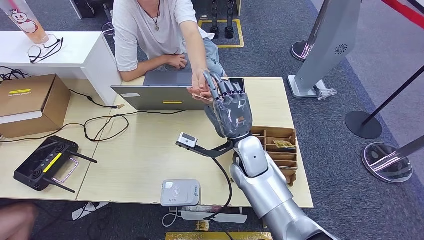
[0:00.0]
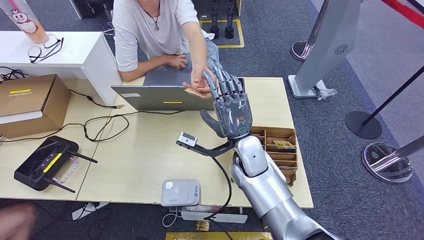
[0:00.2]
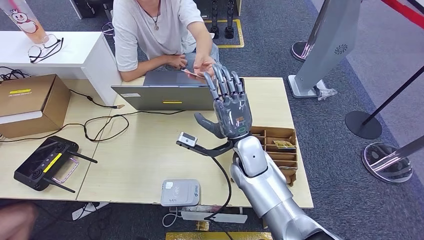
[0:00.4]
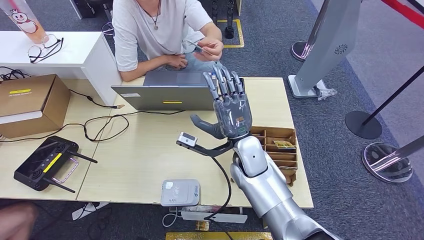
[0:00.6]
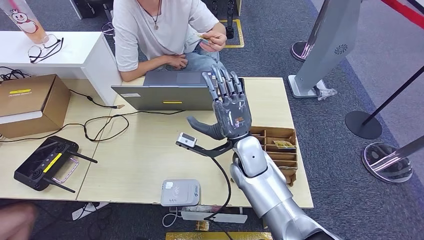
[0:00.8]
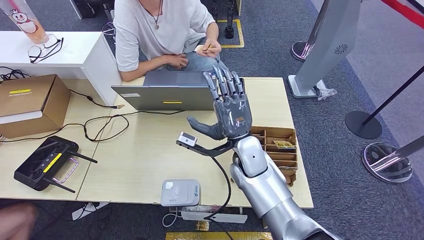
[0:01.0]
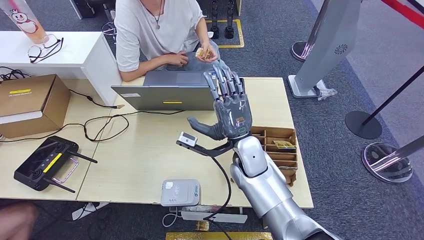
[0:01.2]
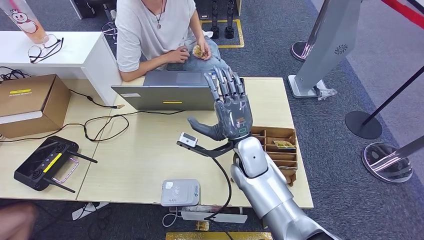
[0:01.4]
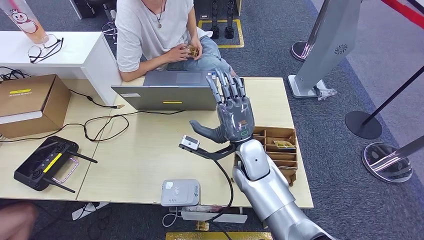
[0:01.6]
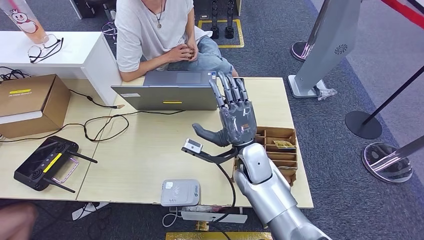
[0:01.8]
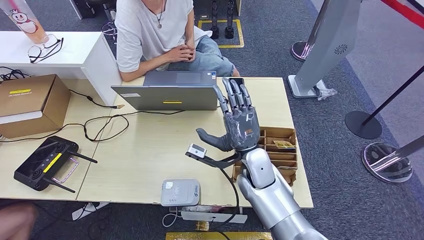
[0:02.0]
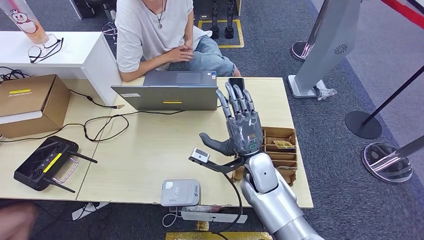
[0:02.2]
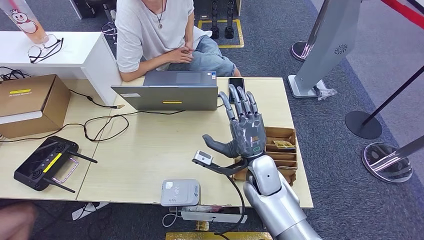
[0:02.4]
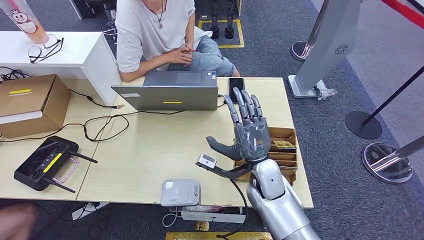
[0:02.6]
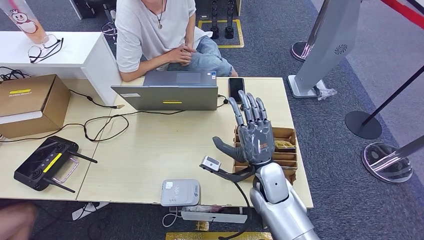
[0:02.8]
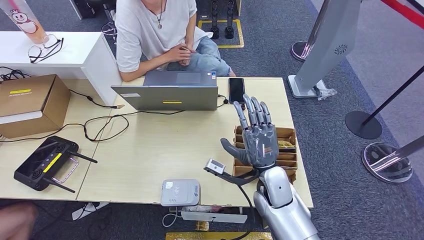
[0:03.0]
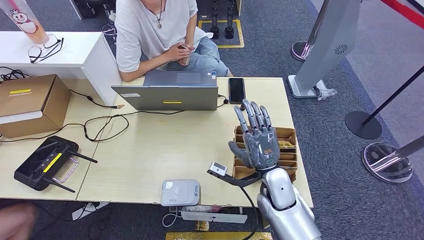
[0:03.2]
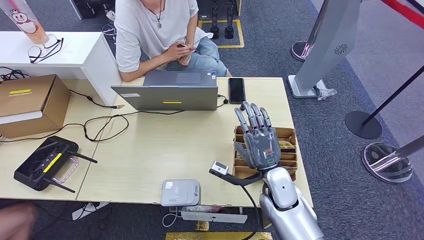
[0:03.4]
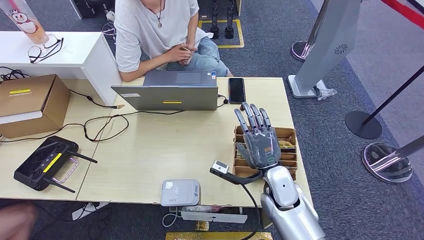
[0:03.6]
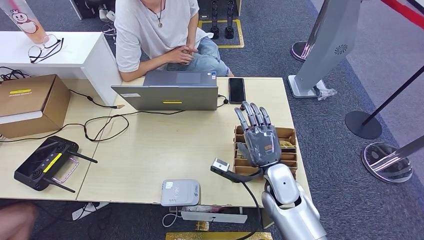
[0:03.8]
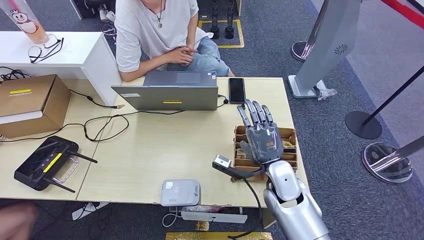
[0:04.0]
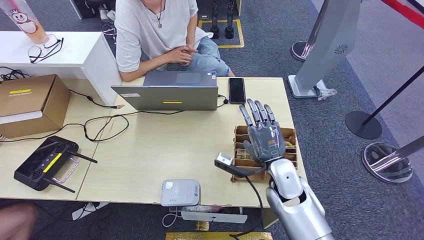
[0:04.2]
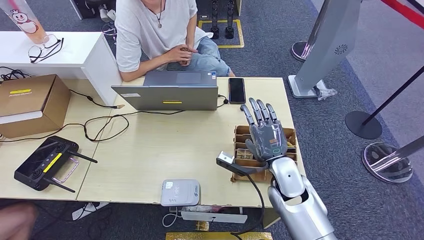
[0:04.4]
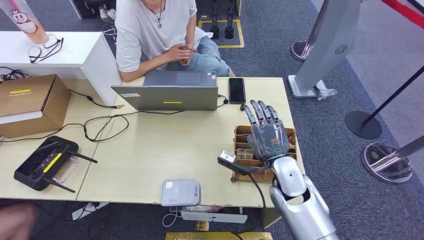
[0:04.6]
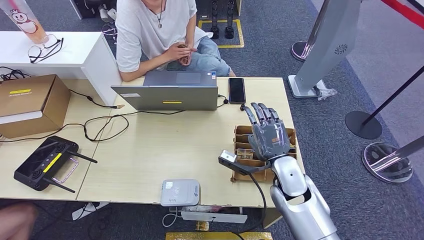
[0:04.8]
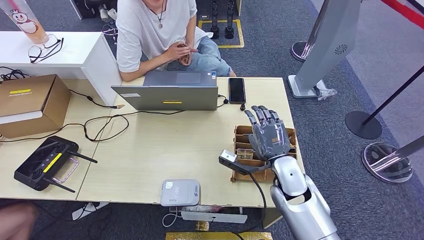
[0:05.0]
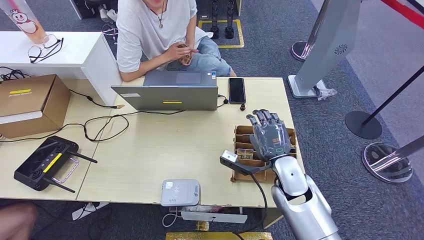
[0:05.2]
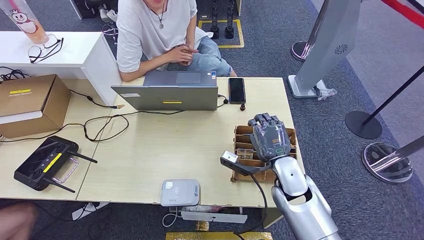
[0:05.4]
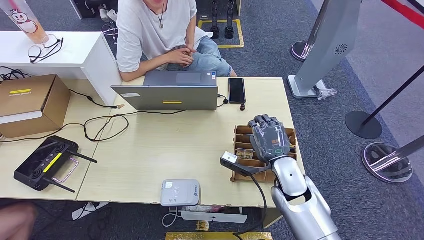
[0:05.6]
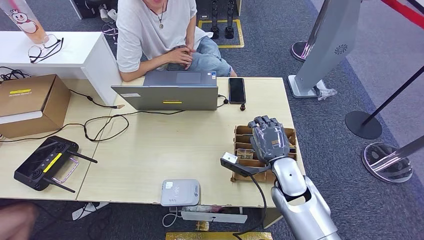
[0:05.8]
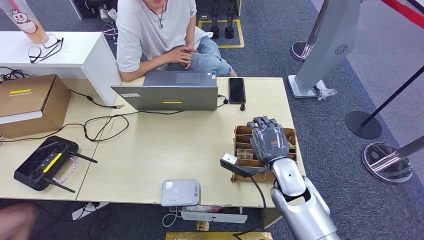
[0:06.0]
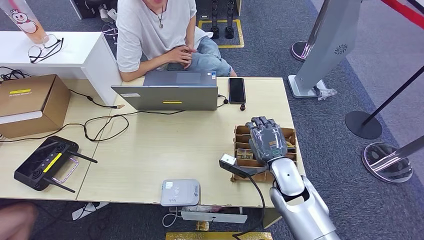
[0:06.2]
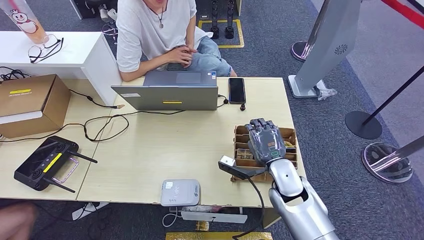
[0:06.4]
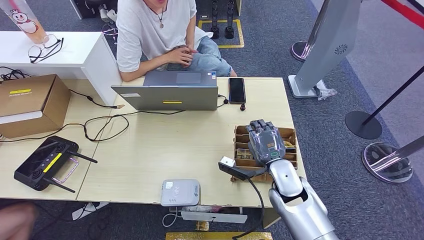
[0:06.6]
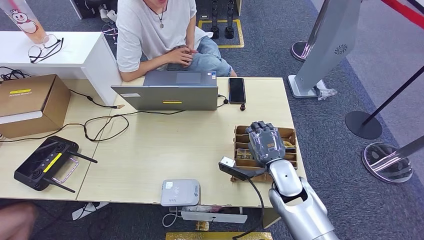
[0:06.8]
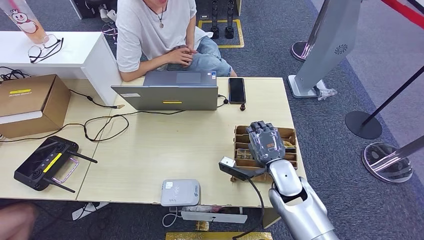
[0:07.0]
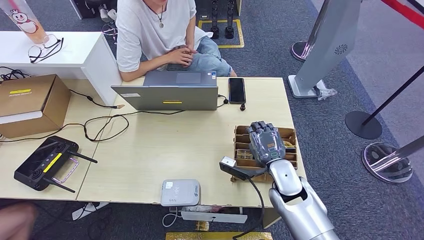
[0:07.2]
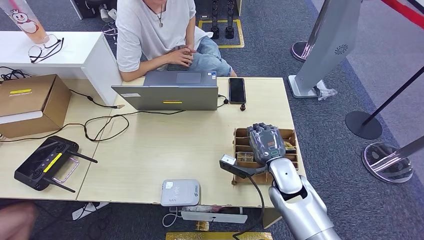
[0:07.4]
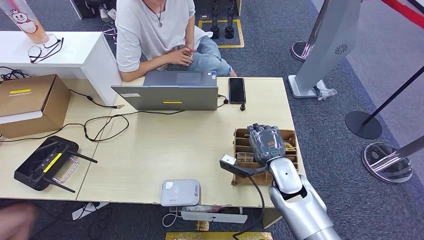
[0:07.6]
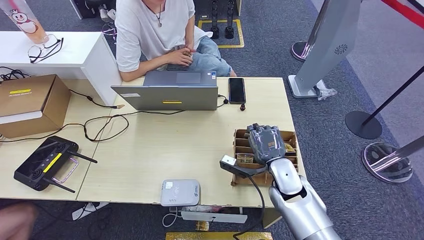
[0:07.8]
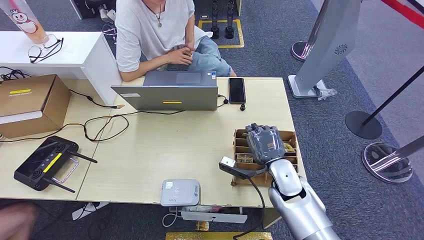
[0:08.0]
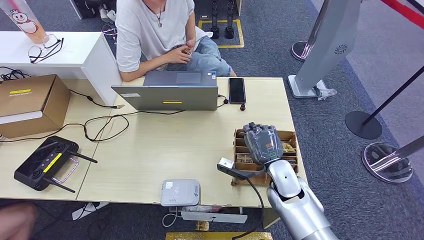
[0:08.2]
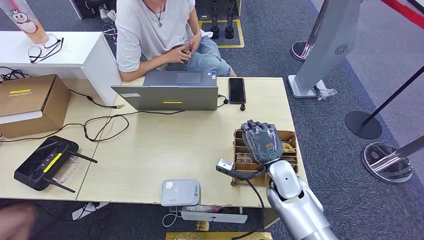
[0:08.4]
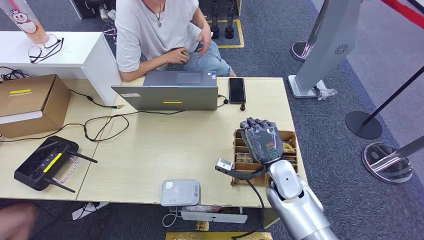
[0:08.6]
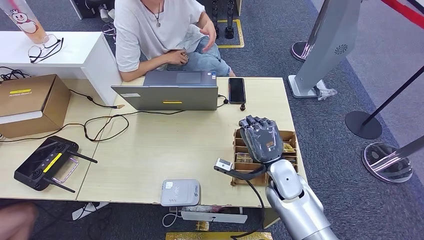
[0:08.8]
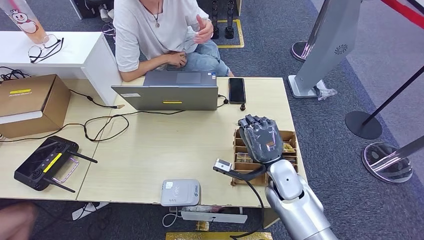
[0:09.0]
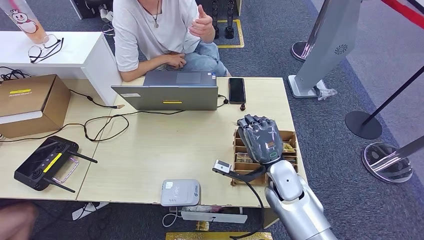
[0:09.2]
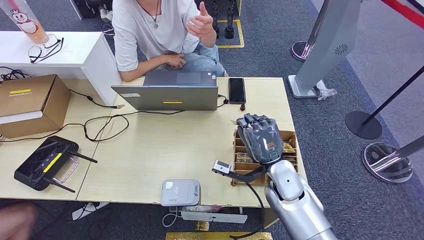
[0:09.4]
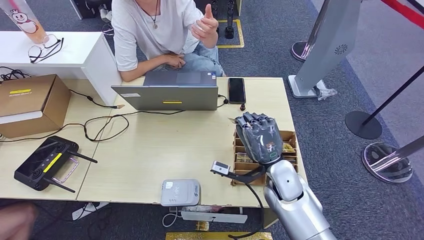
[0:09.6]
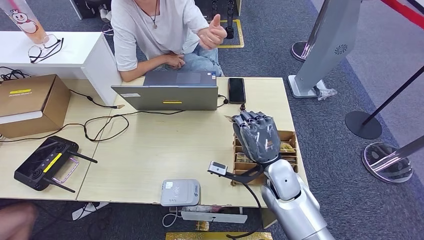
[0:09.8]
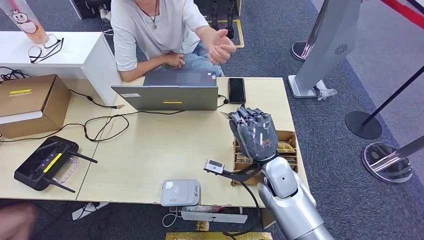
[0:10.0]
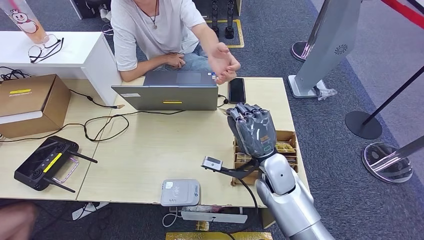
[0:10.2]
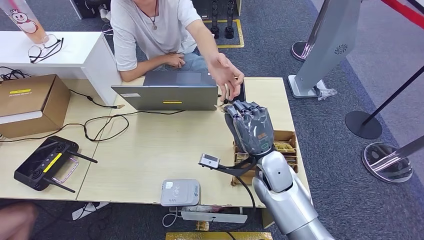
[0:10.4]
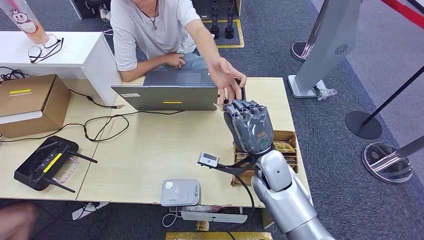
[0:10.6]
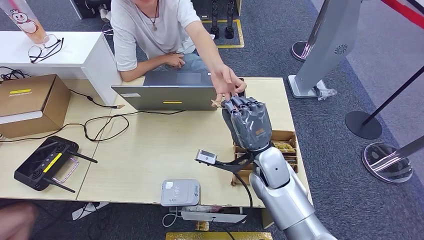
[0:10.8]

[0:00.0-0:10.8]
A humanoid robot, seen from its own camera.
Step, 0:00.4 to 0:09.0: Pick up the room key from the key card box.
0:00.0 to 0:01.6: Neither hand changes place.
0:01.6 to 0:03.0: The right hand moves backward and to the right, roughly 10 cm.
0:04.6 to 0:07.8: The hands move only a little.
0:09.2 to 0:10.8: The right hand shifts by approximately 5 cm.

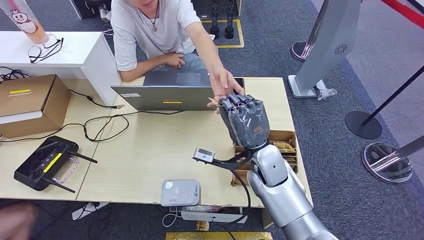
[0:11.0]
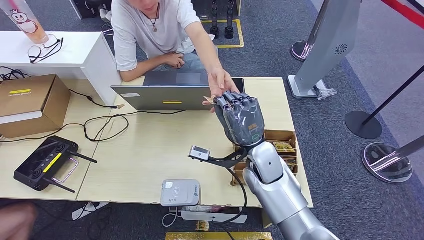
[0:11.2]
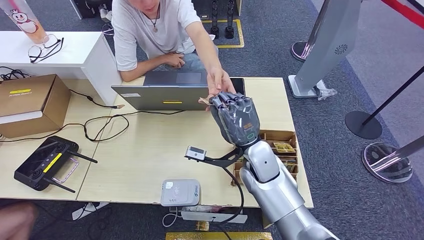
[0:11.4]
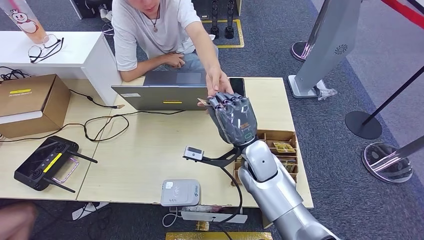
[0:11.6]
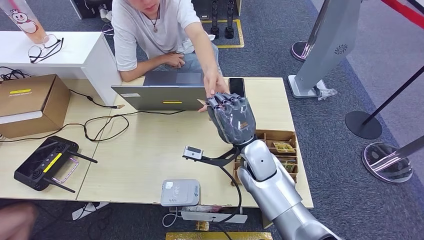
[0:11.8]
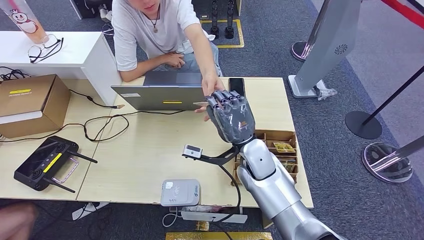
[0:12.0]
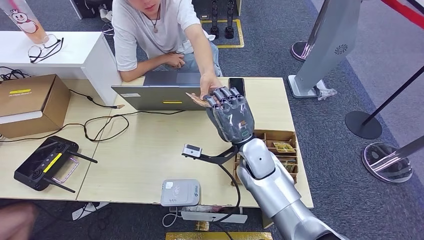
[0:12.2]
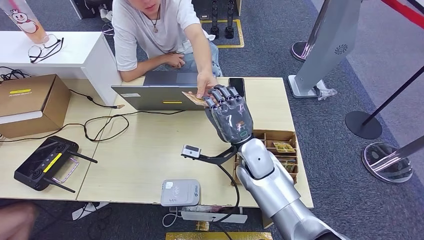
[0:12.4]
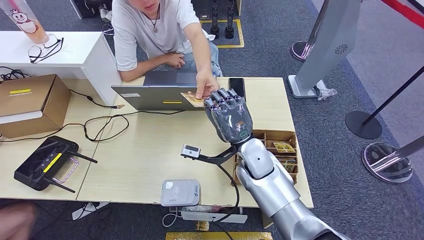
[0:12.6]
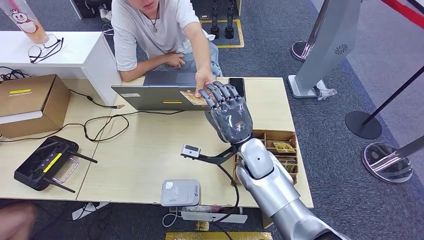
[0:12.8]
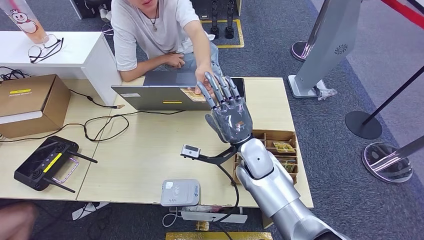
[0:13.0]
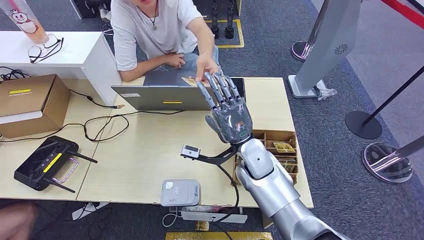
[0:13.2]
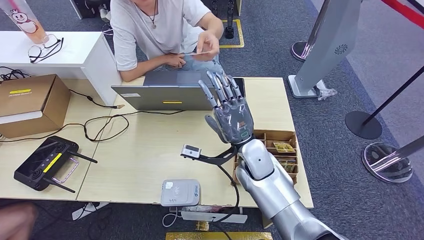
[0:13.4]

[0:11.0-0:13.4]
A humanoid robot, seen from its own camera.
Step, 0:11.0 to 0:13.4: Hand the room key to the person.
0:11.0 to 0:12.2: There are only small adjustments of the hands.
0:12.2 to 0:13.4: Both hands stay put.

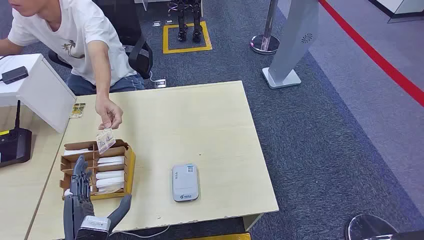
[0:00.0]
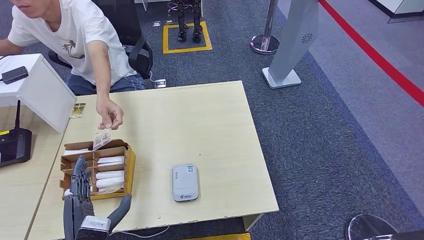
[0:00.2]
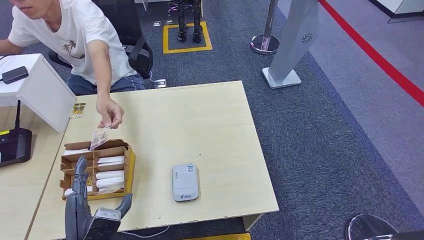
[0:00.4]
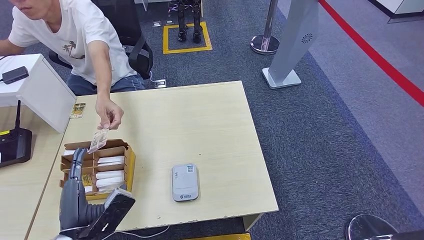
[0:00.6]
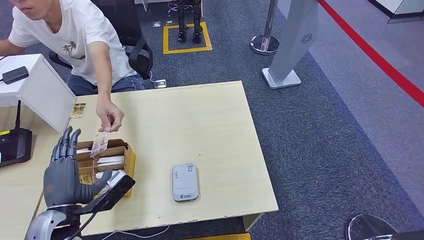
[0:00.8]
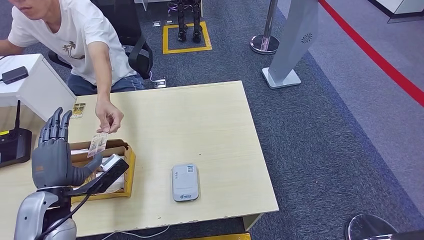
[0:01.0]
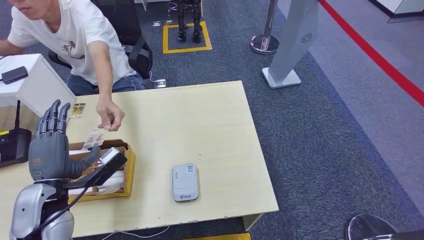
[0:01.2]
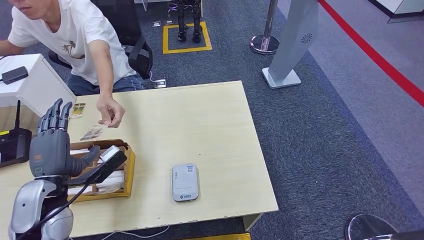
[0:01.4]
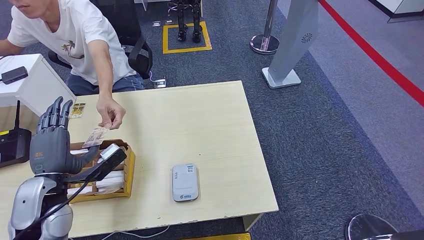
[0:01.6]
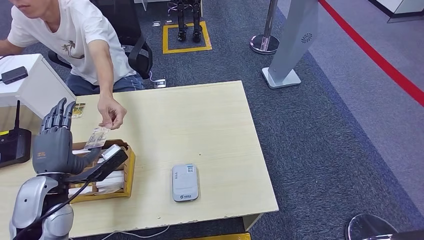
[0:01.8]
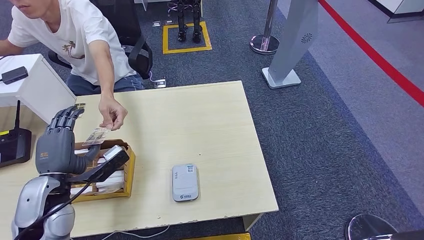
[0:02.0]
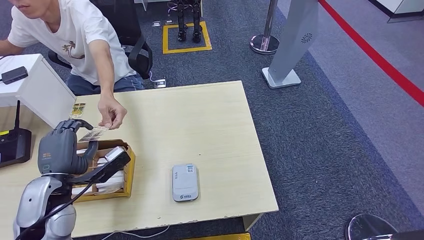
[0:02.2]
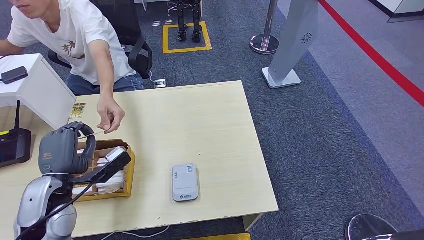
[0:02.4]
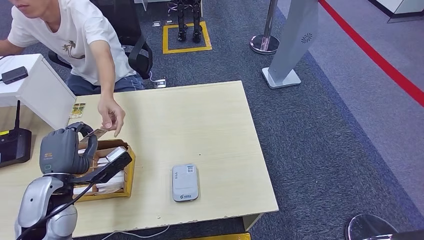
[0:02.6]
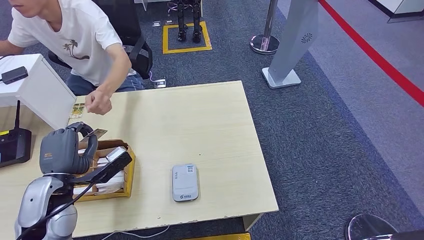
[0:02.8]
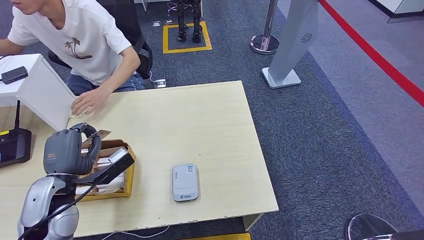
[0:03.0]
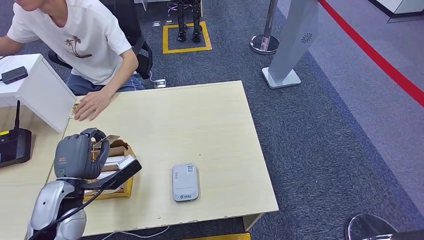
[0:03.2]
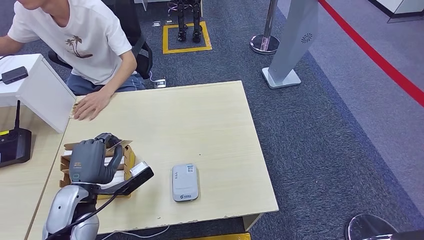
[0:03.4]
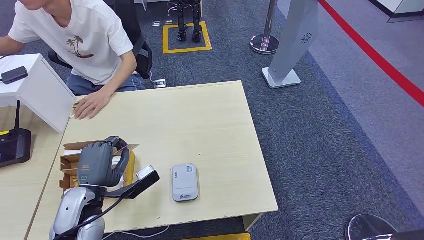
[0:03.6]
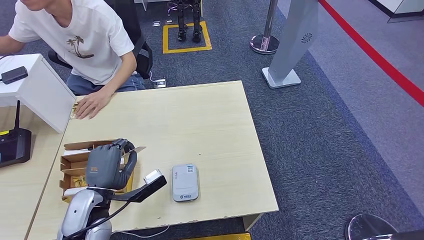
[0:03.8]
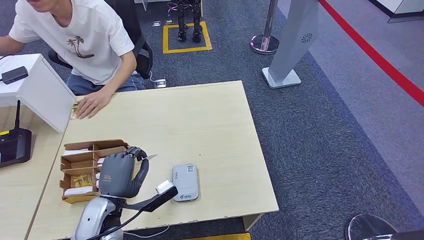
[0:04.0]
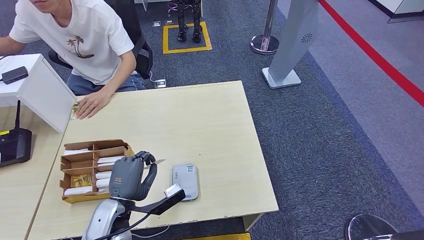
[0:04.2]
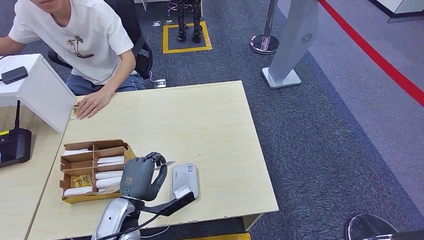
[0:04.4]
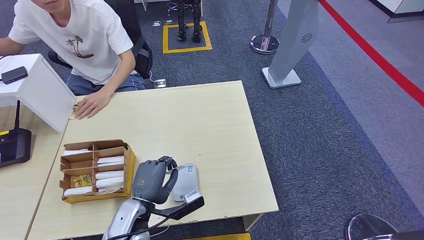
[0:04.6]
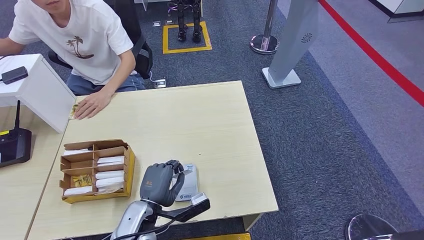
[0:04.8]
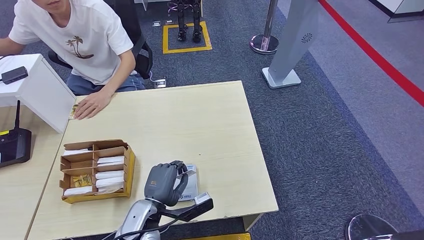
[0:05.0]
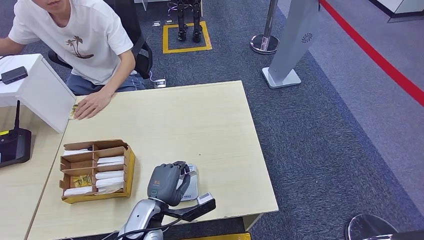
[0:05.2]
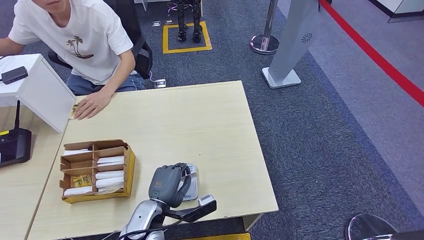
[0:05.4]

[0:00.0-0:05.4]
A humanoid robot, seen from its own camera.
Step, 0:00.0 to 0:03.2: Take the ID card from the person's hand.
0:01.4 to 0:02.8: Neither hand changes place.
0:02.8 to 0:04.0: The left hand heads to the right and downward, covering approximately 10 cm.
0:04.0 to 0:05.4: The left hand shifts about 10 cm to the right and downward.
